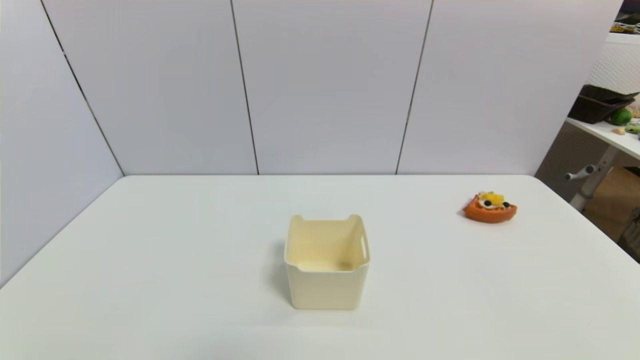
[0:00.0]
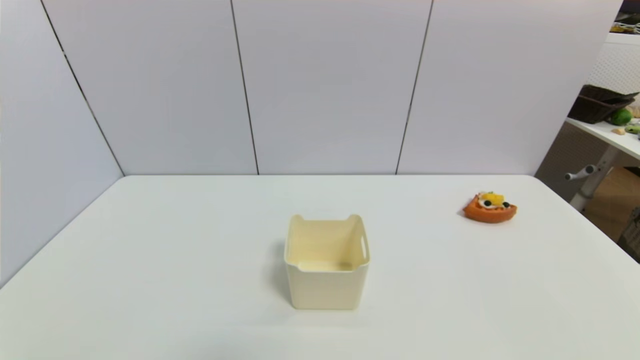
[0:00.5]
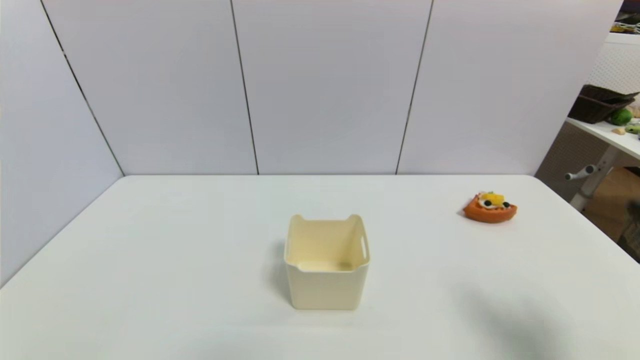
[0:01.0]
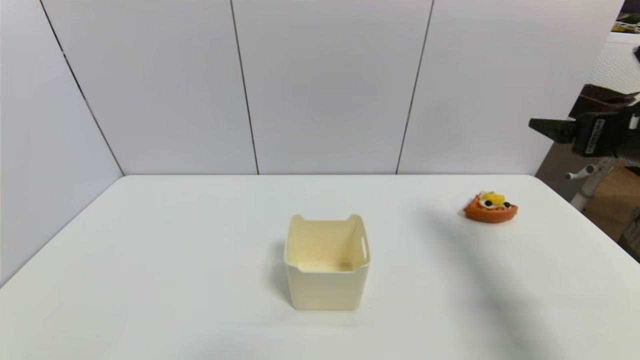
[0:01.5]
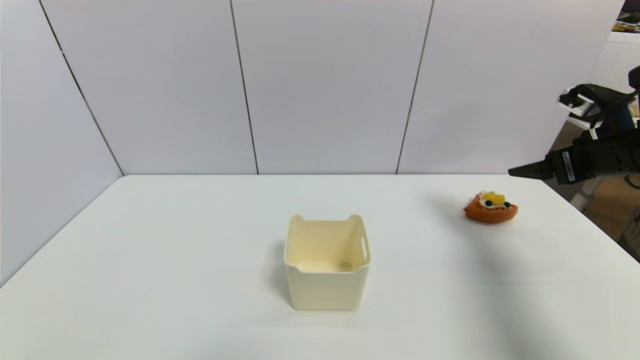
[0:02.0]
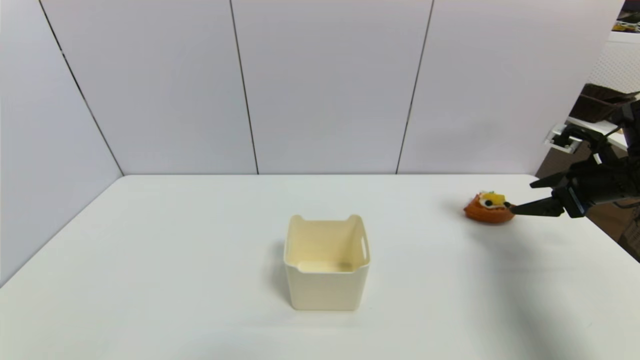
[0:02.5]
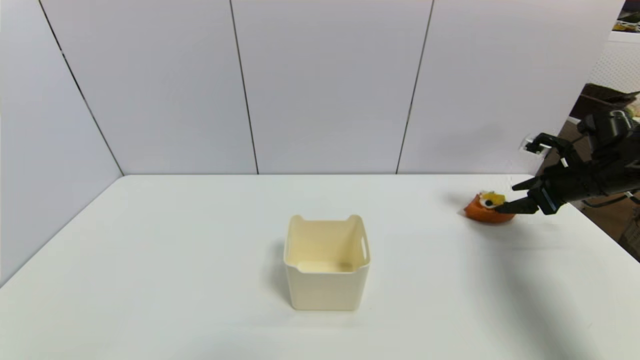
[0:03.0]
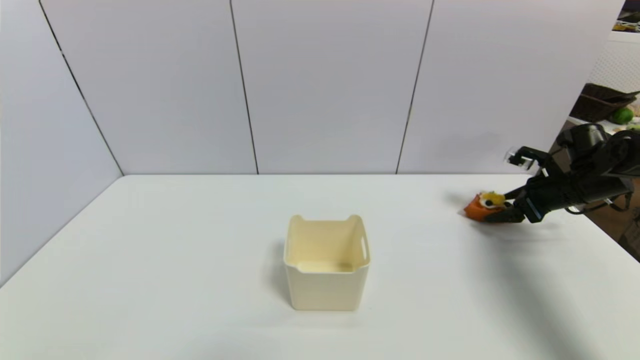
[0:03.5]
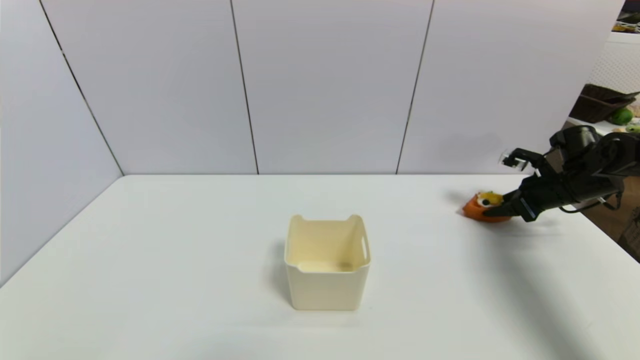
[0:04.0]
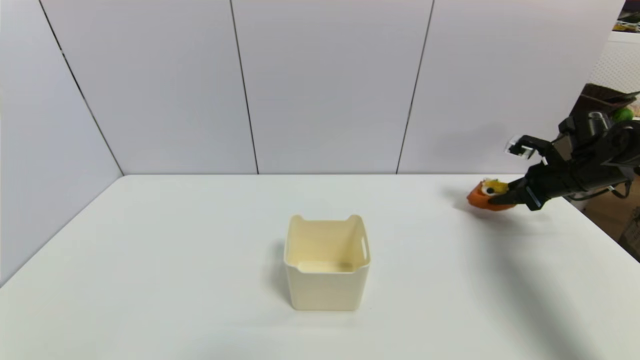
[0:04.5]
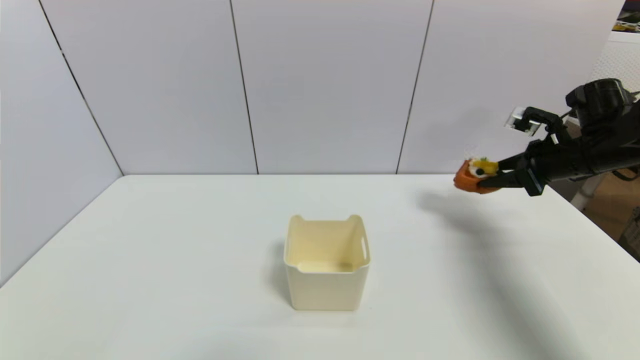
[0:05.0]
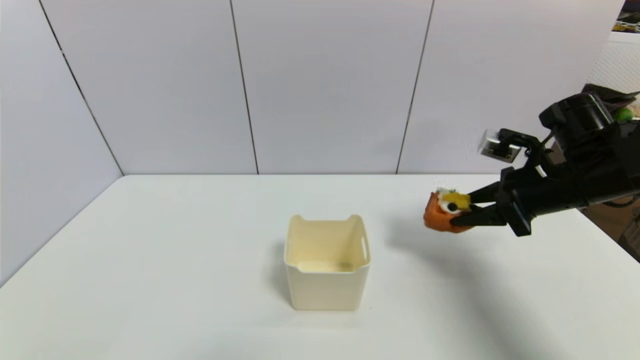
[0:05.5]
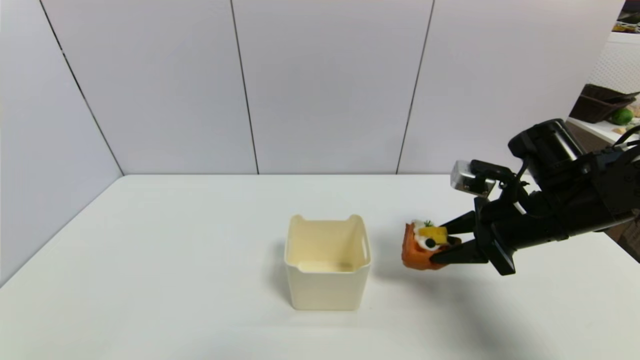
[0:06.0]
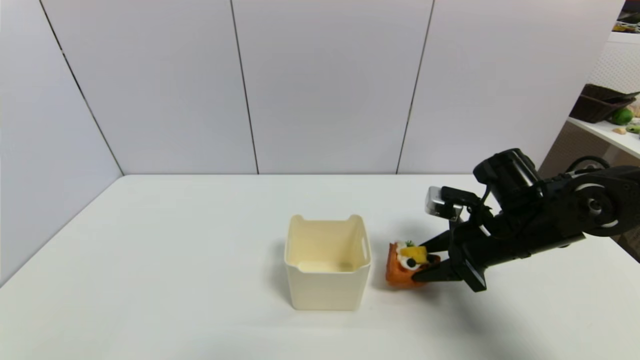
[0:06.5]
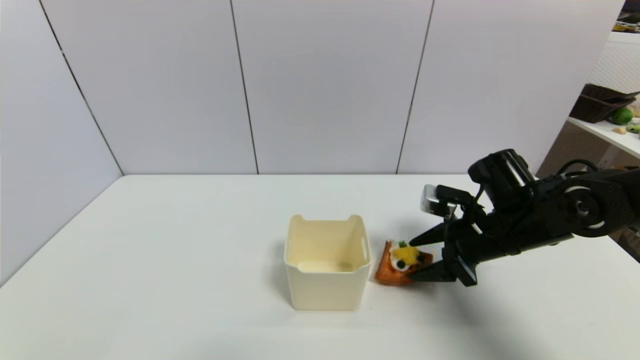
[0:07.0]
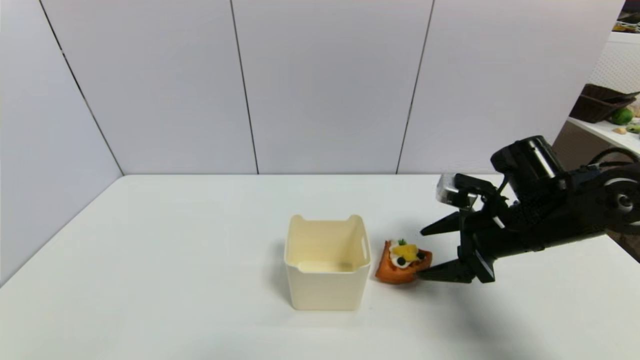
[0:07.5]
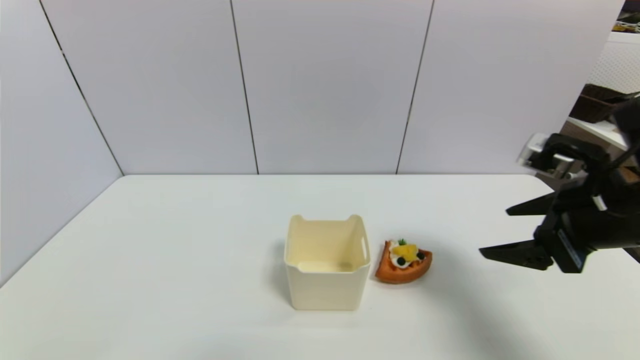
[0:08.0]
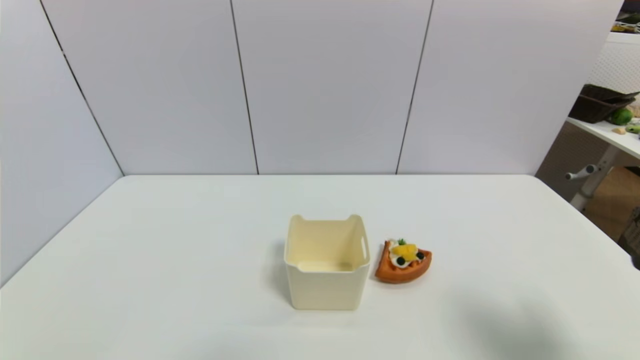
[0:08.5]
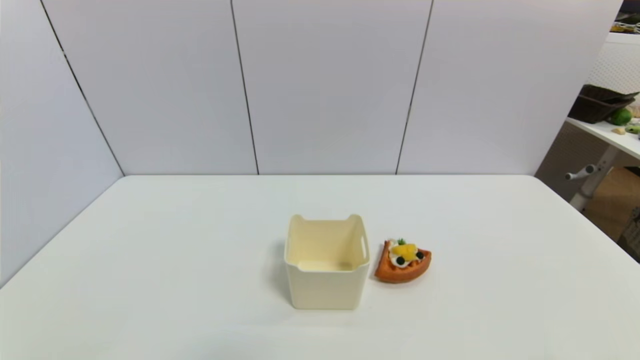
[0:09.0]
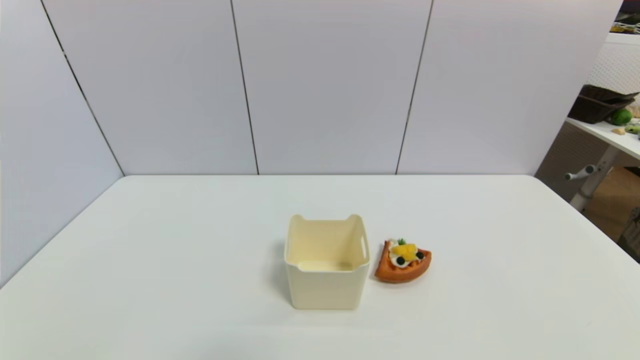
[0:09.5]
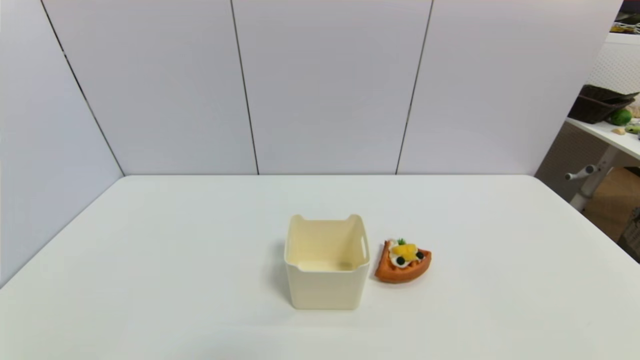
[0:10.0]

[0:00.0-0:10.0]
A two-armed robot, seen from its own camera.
Step, 0:01.5 to 0:04.0: Grasp the pizza with right gripper.
Step, 0:04.5 to 0:07.0: Place the pizza on the table with right gripper.
0:00.0 to 0:02.0: The right gripper heads forward and upward, covering approximately 35 cm.
0:02.0 to 0:04.0: The right gripper is displaced downward and forward by about 15 cm, and closes.
0:04.0 to 0:06.0: The right gripper moves to the left and backward, some 20 cm.
0:06.0 to 0:08.0: The right gripper goes about 10 cm backward and upward, and opens its fingers.
0:08.0 to 0:10.0: The right gripper heads backward and downward, covering approximately 30 cm.
